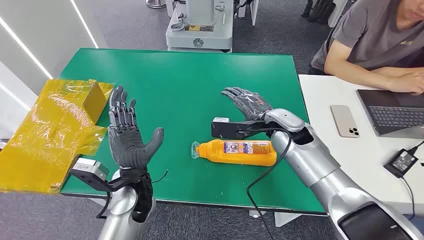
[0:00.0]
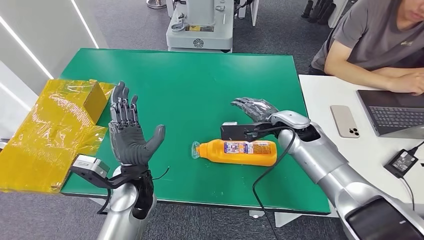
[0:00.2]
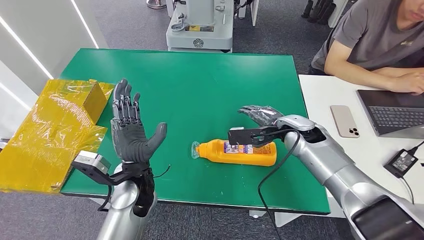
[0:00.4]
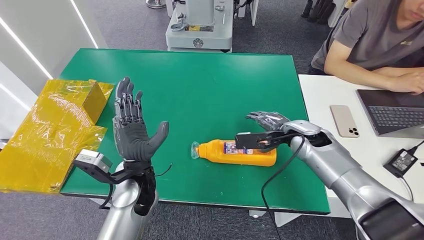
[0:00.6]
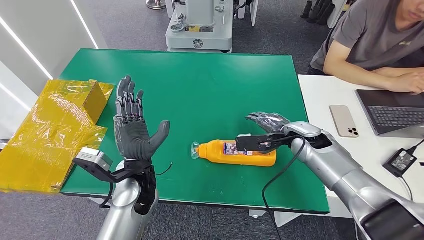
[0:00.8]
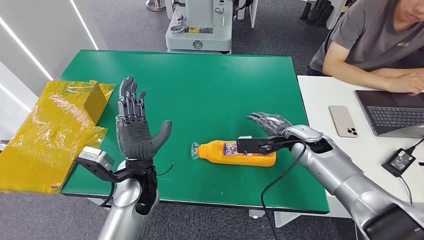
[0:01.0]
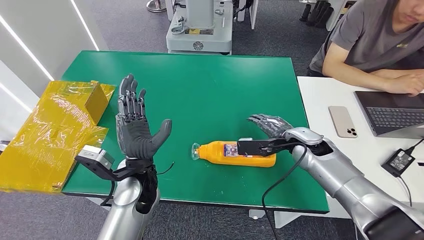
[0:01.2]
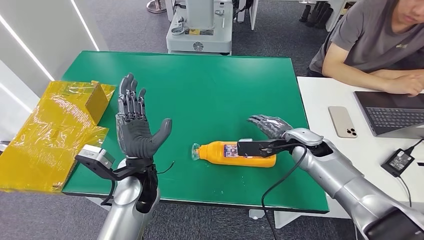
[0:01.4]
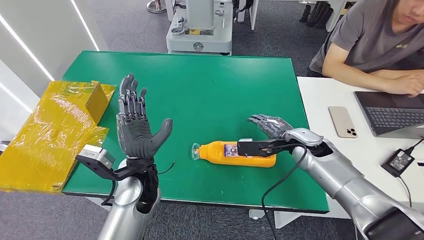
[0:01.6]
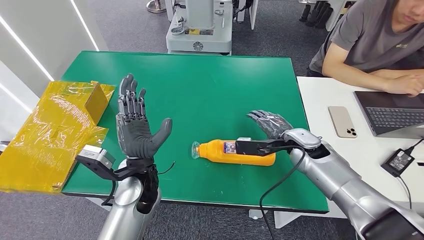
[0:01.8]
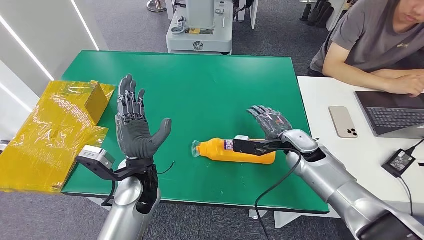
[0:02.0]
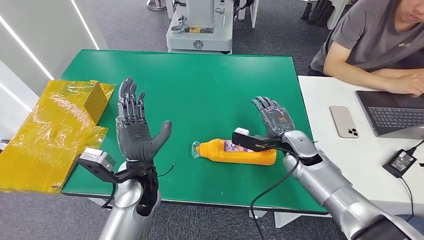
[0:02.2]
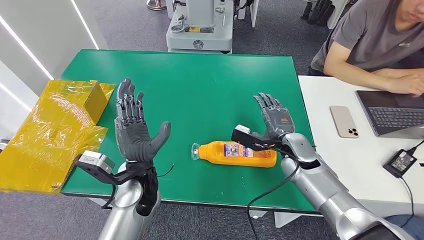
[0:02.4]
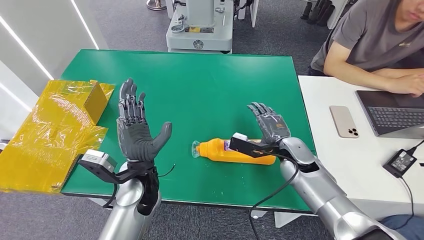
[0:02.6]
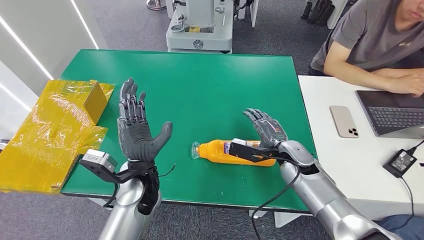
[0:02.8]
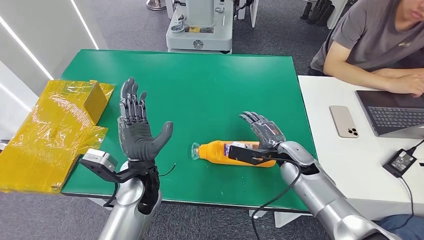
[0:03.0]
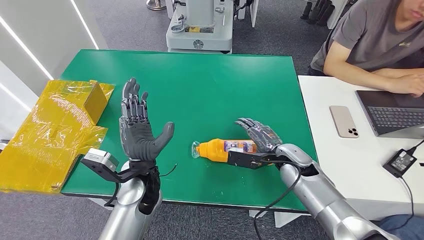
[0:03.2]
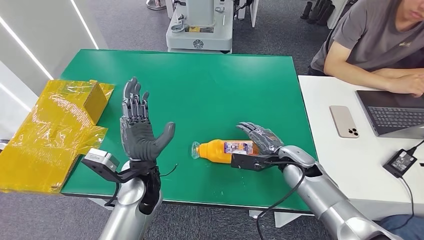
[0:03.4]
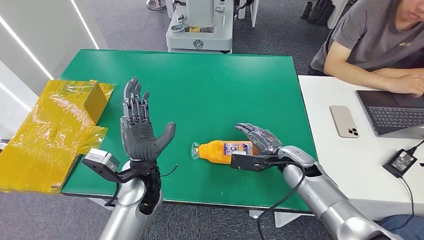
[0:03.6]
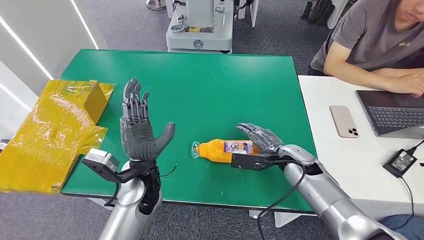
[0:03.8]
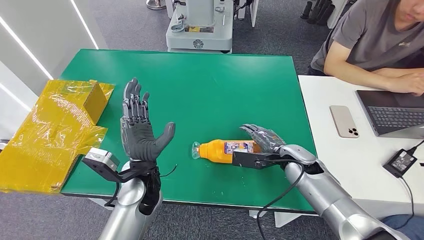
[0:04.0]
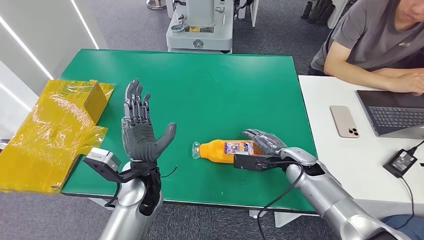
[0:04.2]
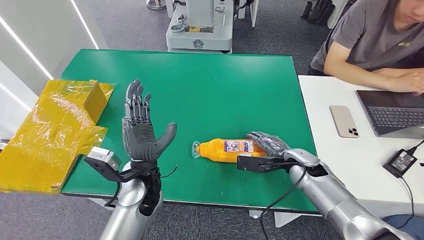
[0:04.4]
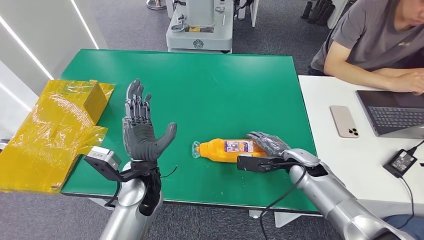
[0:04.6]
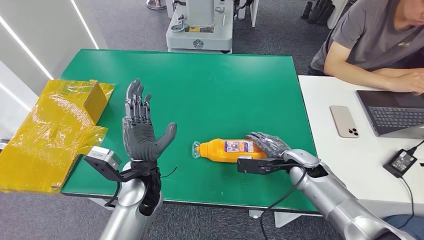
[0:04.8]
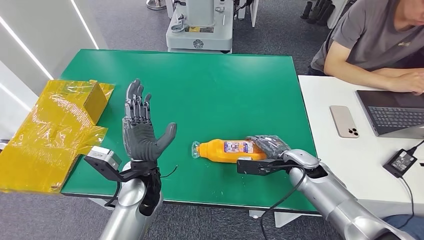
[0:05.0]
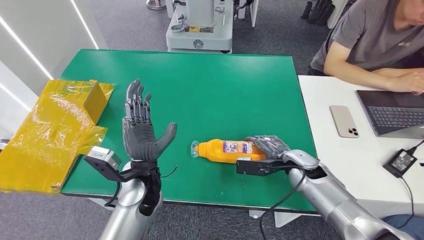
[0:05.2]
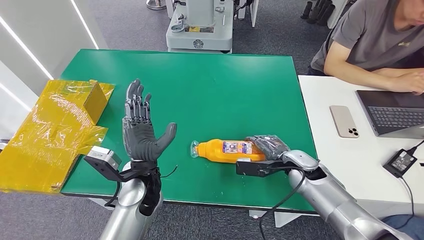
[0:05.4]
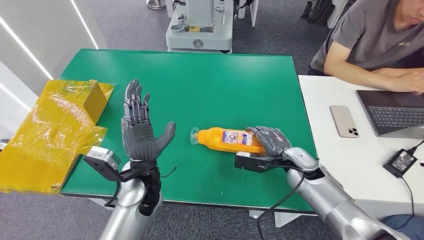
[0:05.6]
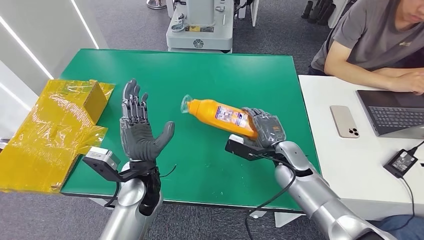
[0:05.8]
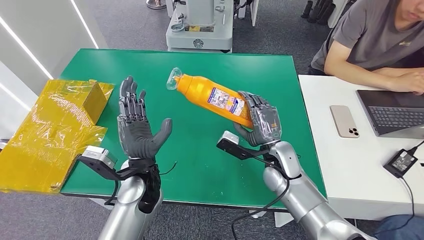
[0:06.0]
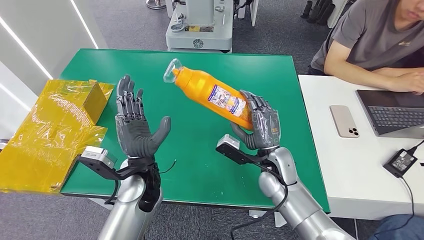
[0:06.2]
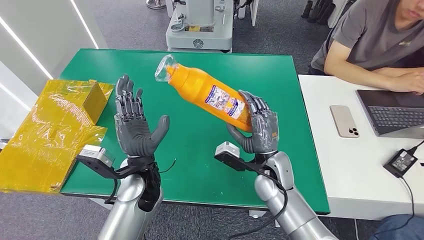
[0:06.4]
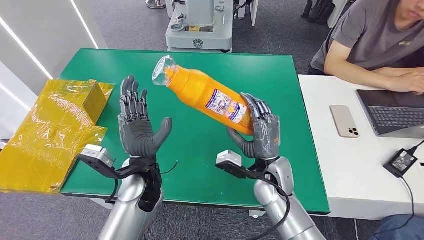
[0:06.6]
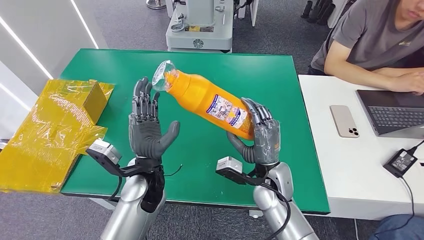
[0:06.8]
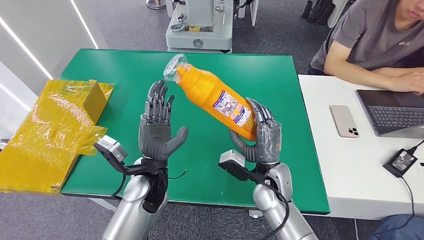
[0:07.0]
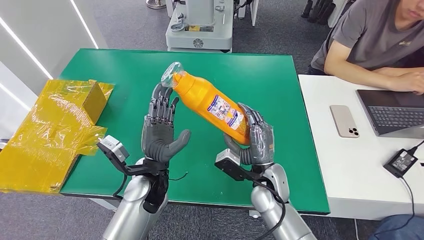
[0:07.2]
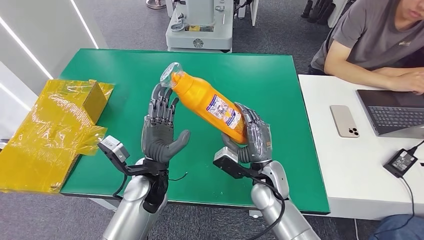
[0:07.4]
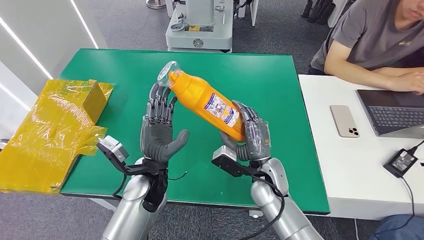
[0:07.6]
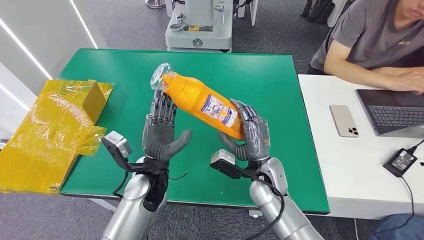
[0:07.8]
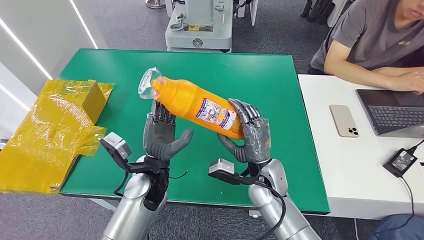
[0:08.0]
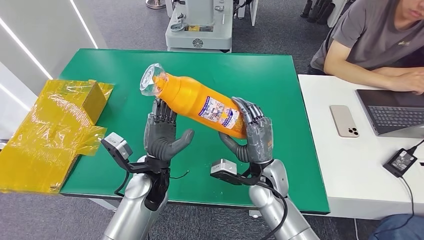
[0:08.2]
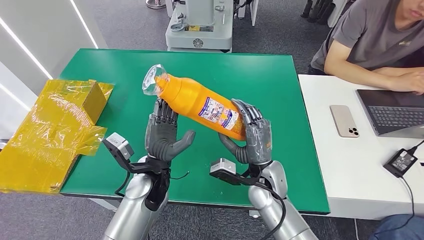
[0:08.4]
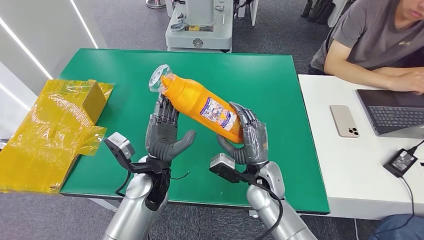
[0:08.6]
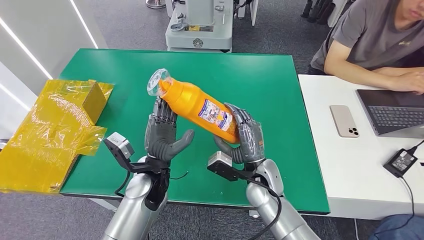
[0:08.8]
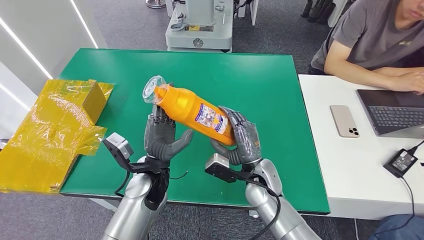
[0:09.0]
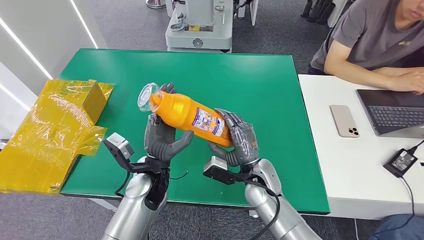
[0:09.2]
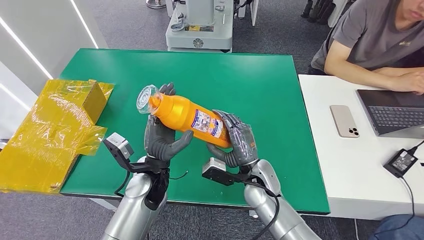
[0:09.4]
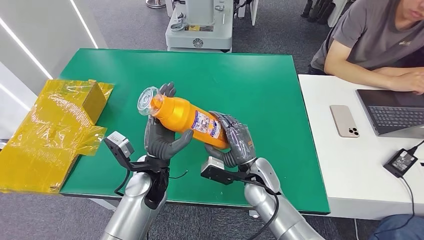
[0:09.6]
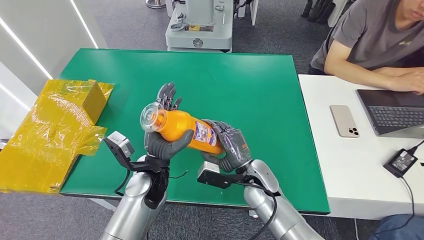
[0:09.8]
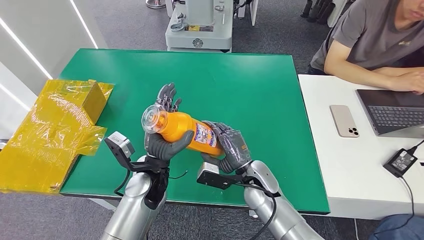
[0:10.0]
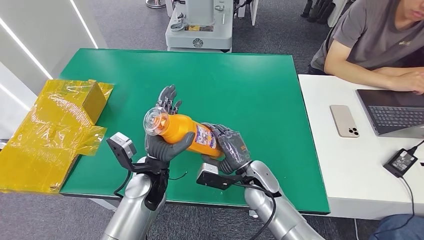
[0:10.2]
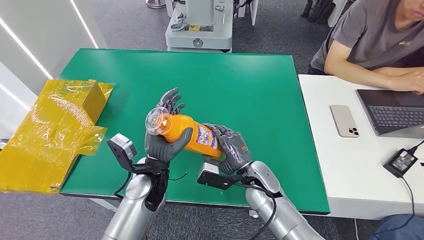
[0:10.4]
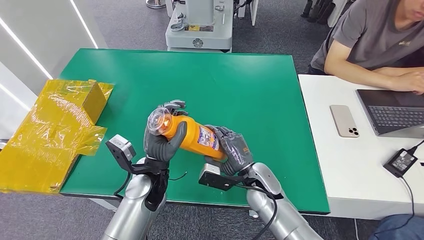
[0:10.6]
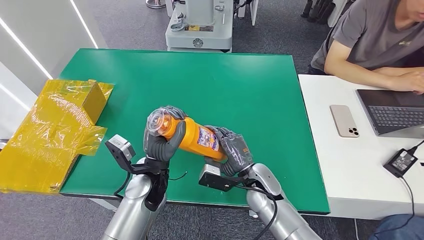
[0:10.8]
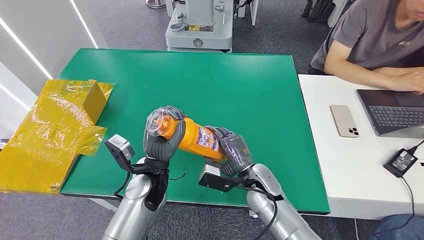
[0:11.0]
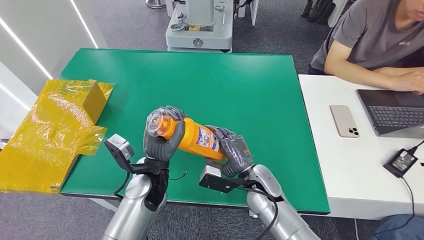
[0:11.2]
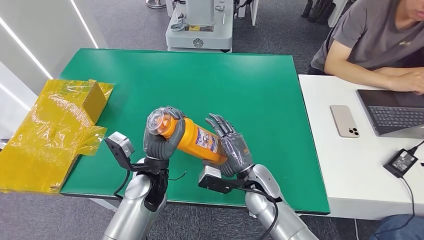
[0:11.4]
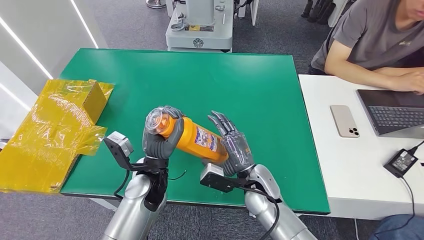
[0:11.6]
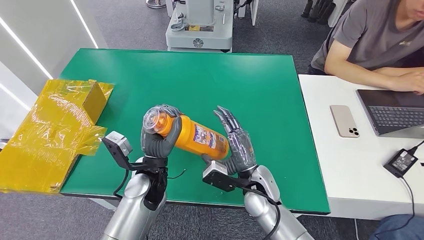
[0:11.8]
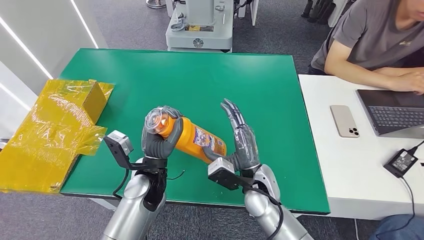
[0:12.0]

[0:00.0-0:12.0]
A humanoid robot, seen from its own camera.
Step, 0:00.0 to 0:06.2: Pick up the bottle from the table.
0:01.6 to 0:03.0: The right hand changes place by about 5 cm.
0:03.0 to 0:04.4: There are only small adjustments of the hands.
0:04.4 to 0:06.0: The right hand shifts roughly 10 cm to the left.
0:06.0 to 0:07.6: The right hand heads to the left, covering some 5 cm.
0:07.6 to 0:09.0: There are only small adjustments of the hands.
0:09.0 to 0:10.4: There are only small adjustments of the hands.

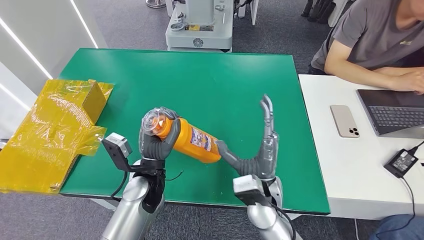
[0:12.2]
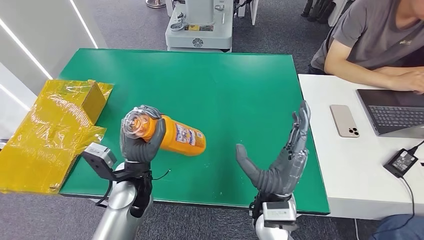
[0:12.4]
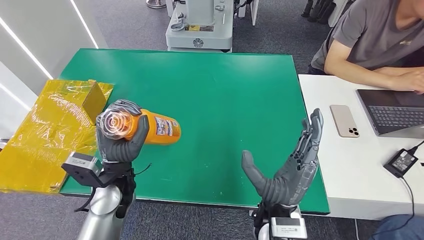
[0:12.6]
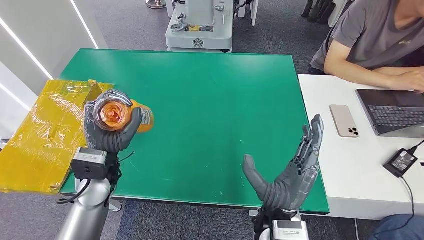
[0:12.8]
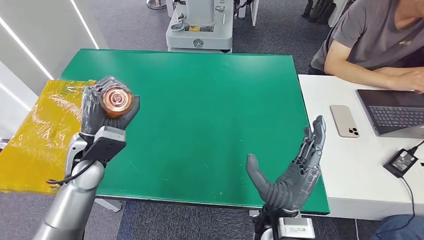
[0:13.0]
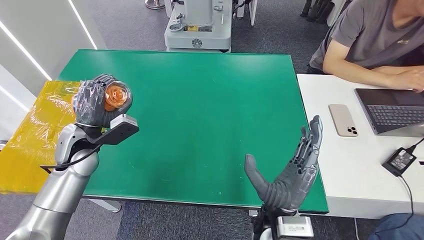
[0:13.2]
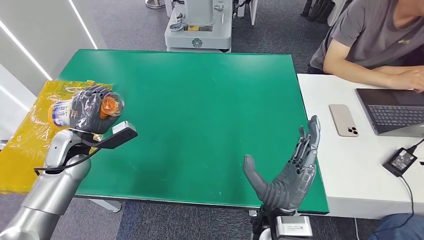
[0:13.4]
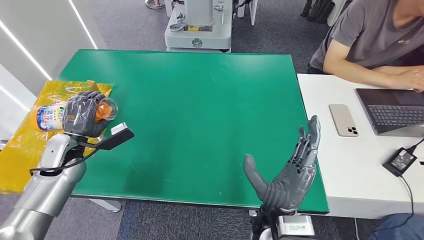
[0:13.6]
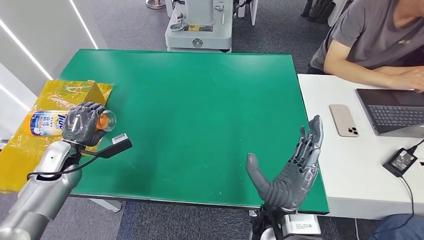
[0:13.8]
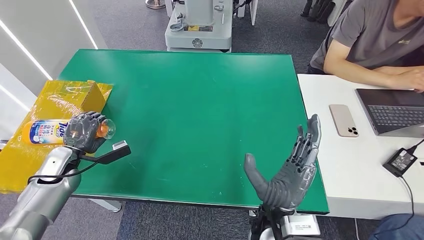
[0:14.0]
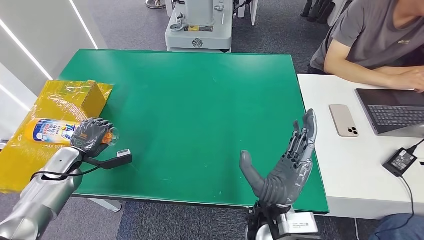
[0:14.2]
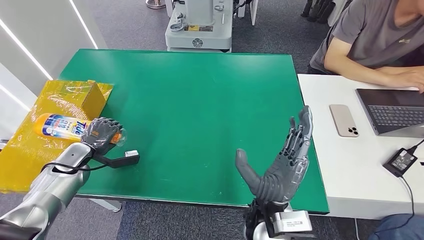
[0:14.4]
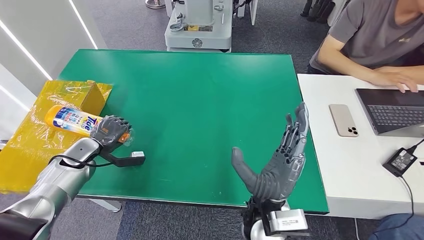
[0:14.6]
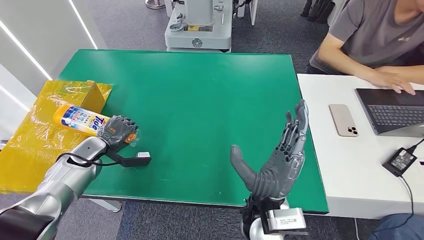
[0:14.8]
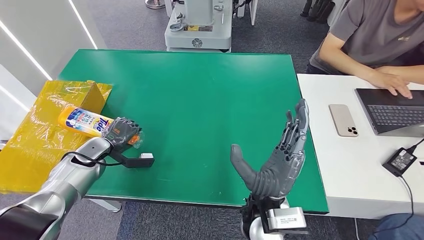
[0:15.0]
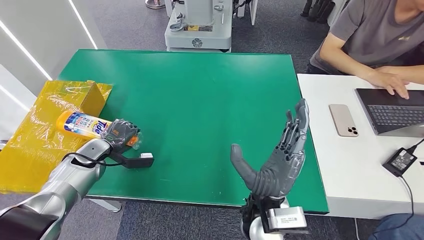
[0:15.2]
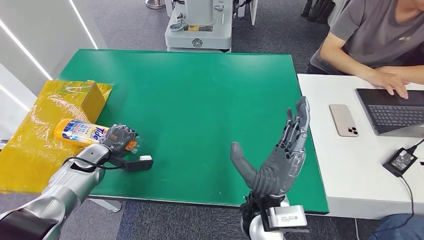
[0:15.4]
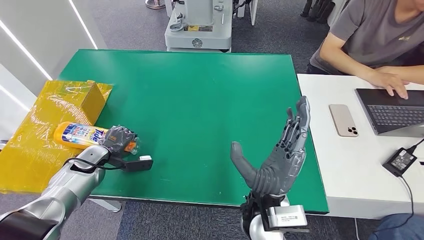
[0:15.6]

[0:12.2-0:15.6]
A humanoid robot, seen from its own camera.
Step, 0:12.2 to 0:15.6: Turn the bottle to the front side.
0:12.2 to 0:13.8: The left hand travels to the left by approximately 25 cm, while the right hand moves backward, some 5 cm.
0:13.8 to 0:15.6: The left hand goes some 5 cm downward.

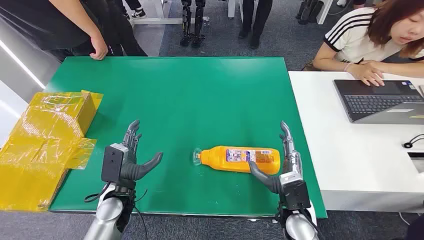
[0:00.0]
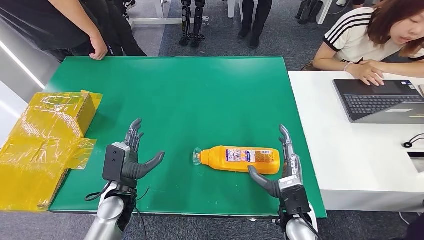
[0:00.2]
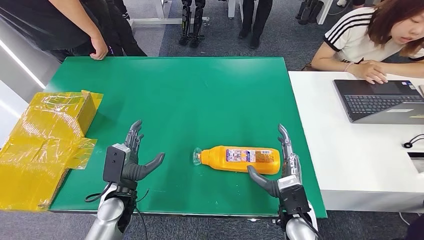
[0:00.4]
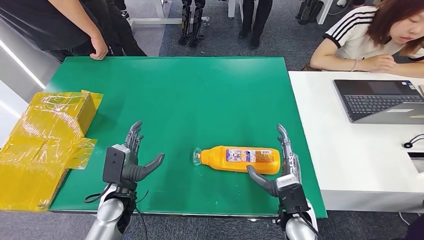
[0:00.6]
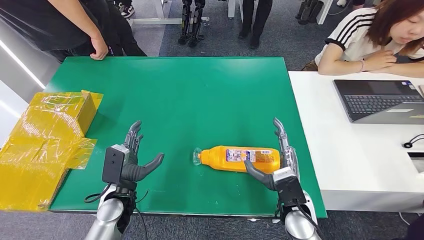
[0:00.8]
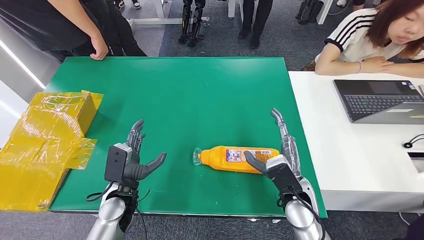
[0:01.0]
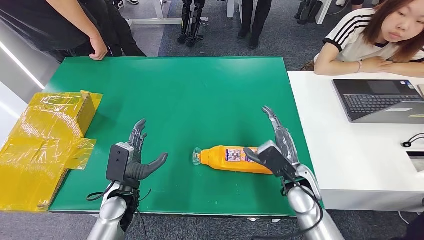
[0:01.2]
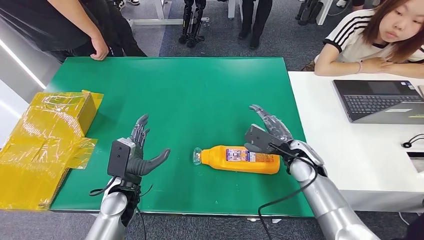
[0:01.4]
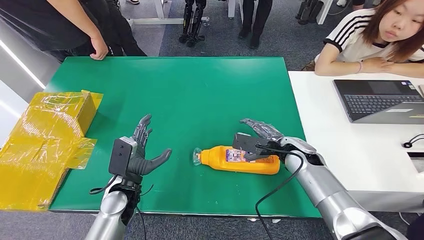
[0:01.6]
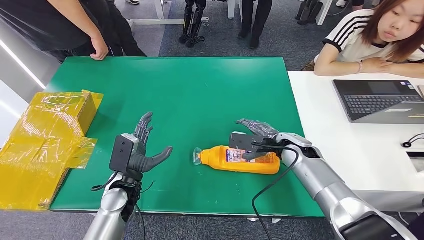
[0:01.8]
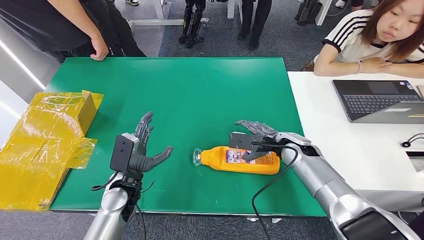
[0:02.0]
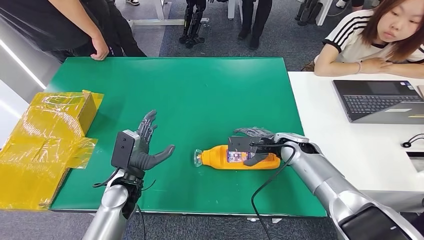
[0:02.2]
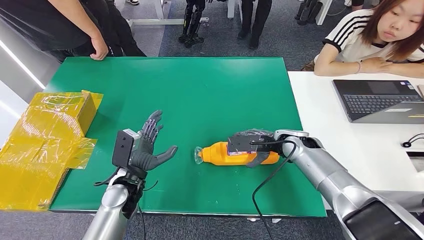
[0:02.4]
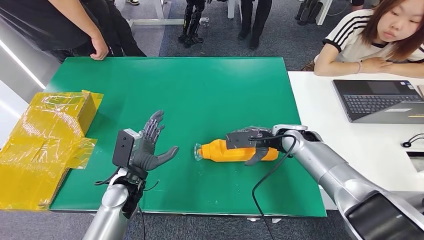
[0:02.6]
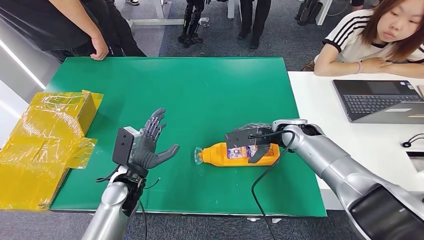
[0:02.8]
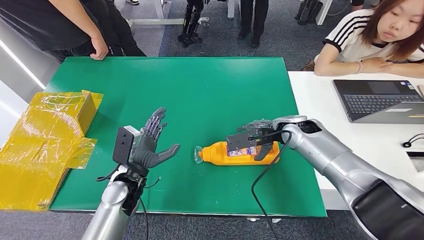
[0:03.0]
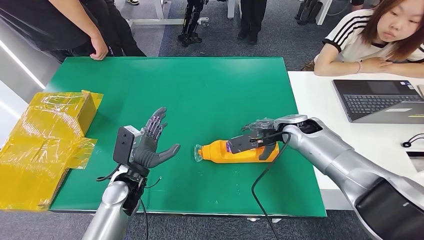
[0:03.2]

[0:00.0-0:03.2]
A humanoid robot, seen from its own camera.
0:01.6 to 0:03.2: The right hand shifts about 5 cm upward.
